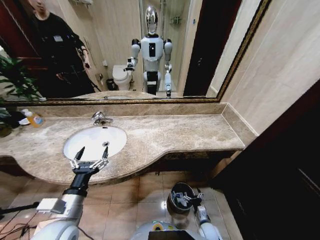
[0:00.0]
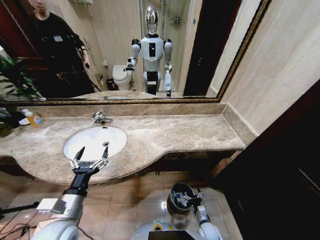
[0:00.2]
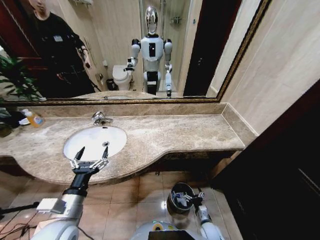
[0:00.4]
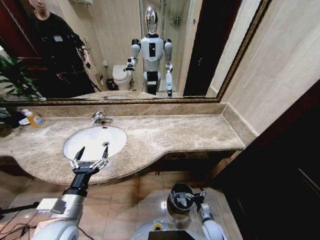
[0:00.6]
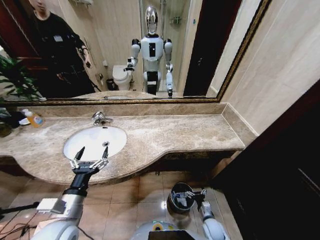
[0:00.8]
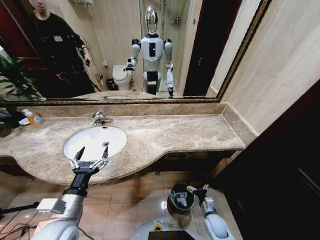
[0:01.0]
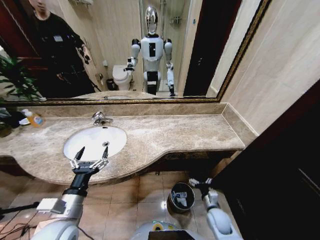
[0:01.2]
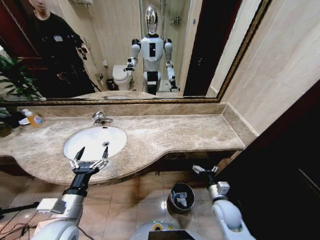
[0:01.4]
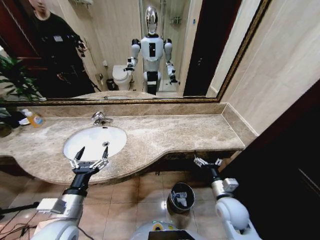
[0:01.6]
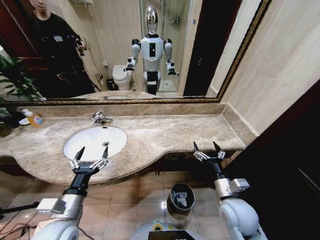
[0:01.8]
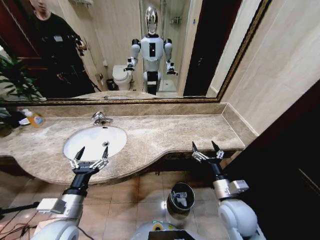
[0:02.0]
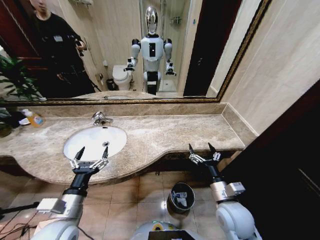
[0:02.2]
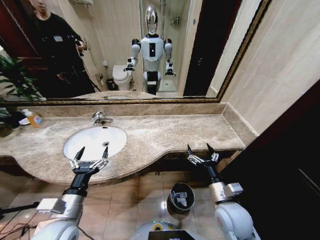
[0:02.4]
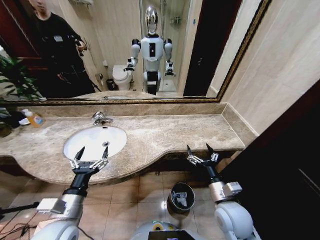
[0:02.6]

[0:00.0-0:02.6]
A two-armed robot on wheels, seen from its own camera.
Task of the whole recording: Pick up the trash from the sink and place it in the trash bin.
0:00.0 to 0:01.2: The right gripper travels upward by roughly 10 cm.
0:01.2 to 0:02.6: The right gripper is displaced upward by roughly 20 cm.
